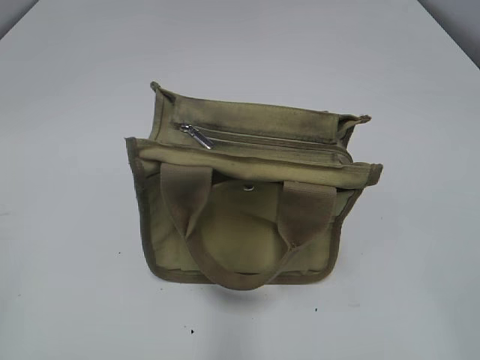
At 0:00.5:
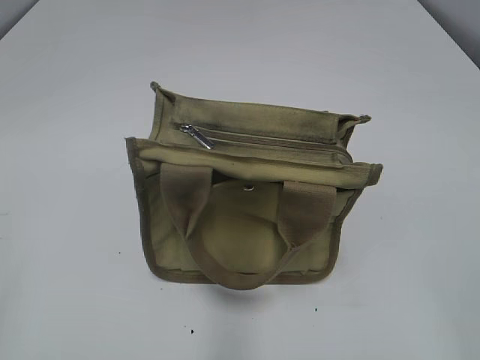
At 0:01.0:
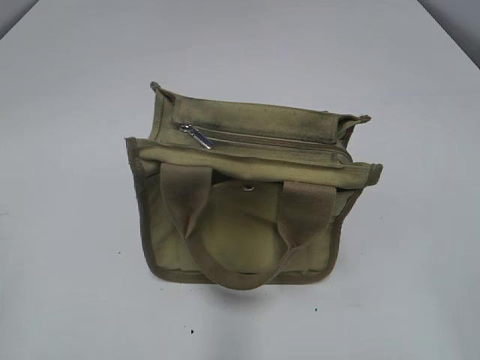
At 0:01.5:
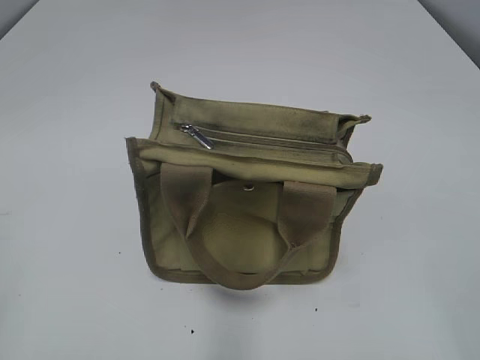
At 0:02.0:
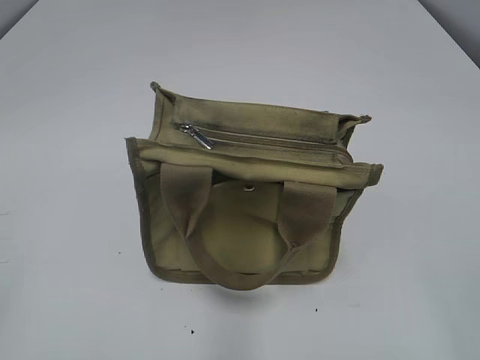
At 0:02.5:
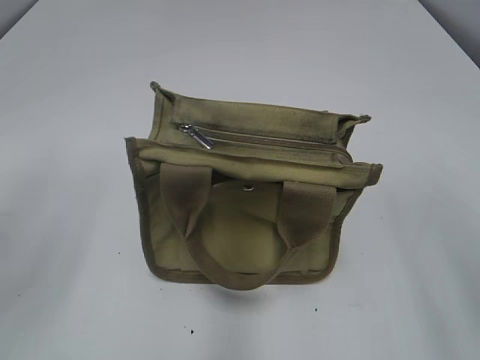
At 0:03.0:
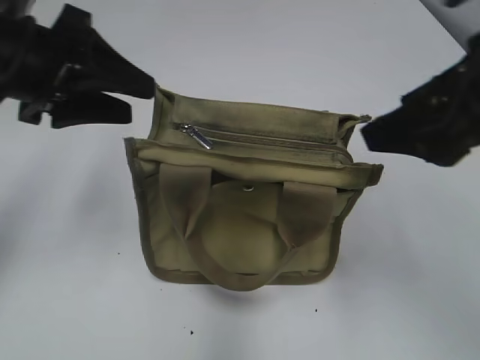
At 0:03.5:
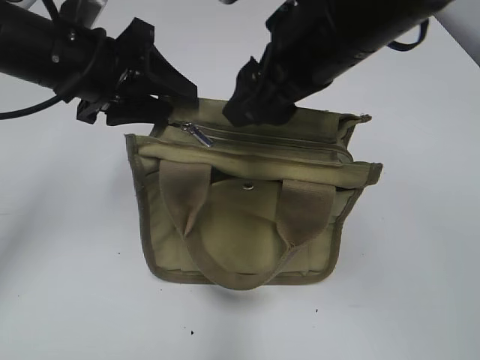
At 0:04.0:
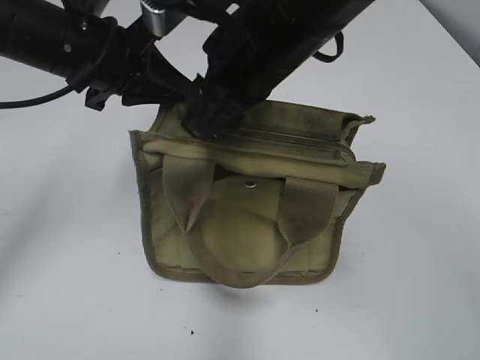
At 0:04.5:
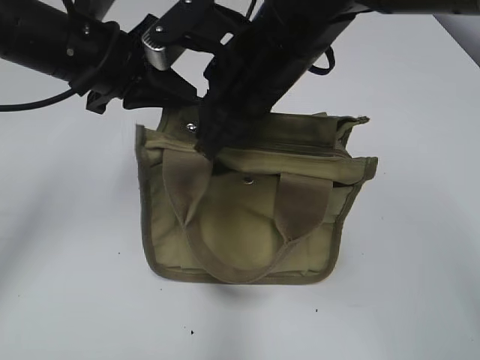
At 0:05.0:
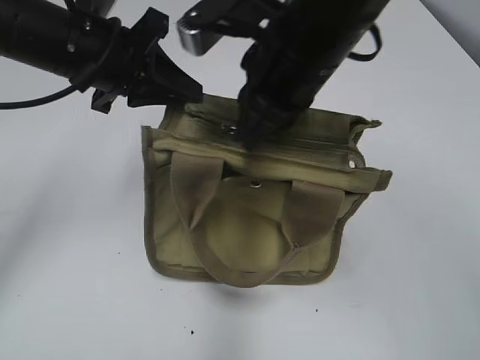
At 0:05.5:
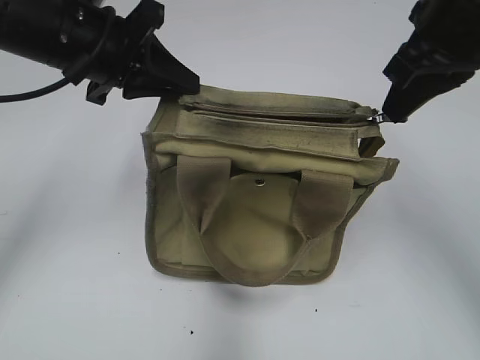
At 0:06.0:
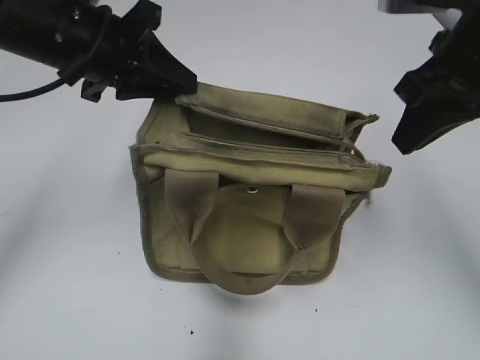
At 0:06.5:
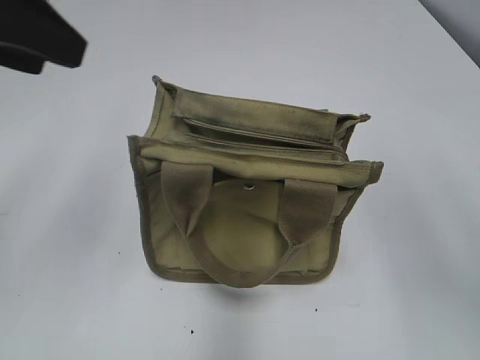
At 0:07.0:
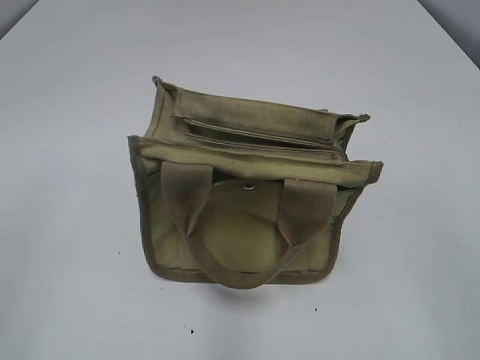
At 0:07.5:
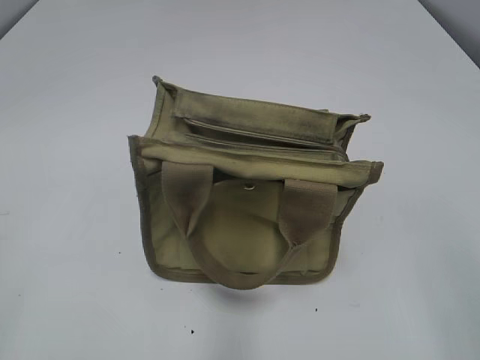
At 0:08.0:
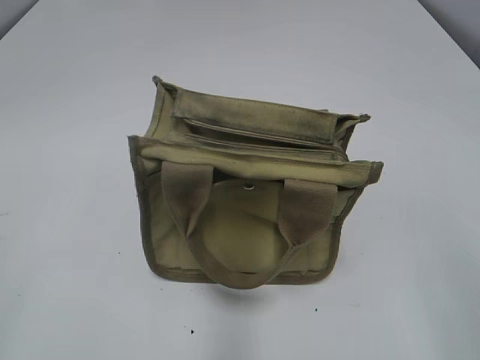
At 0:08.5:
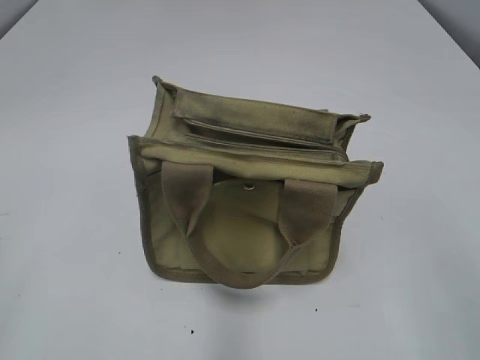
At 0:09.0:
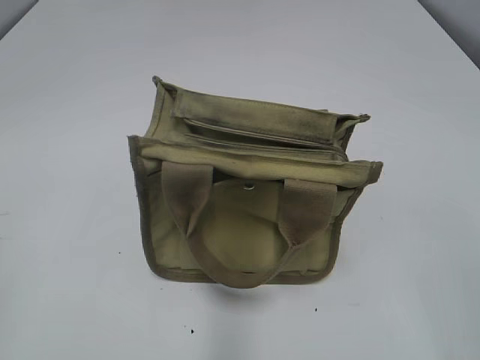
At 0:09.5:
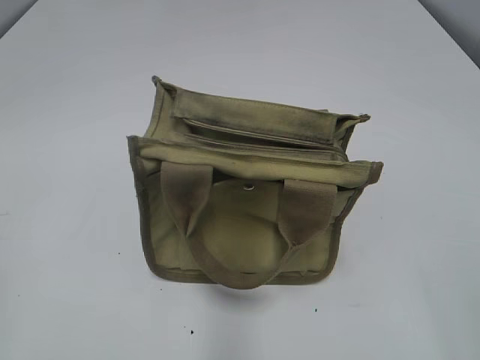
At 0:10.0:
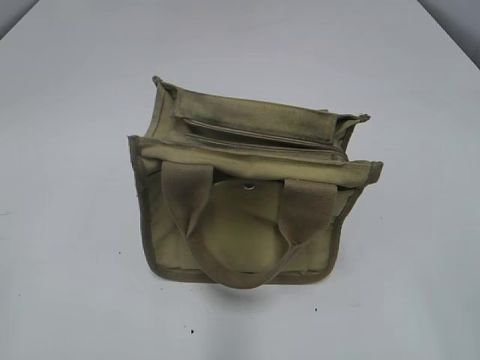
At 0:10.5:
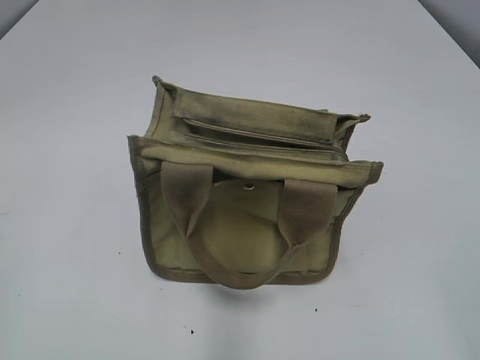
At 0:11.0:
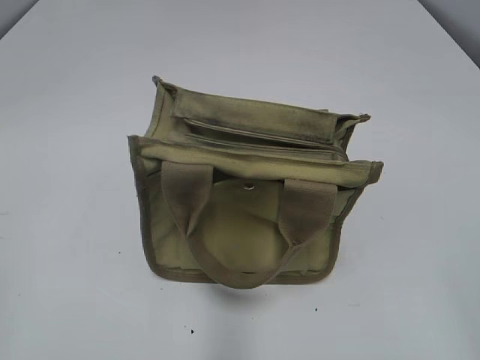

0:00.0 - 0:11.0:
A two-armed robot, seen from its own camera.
Step, 0:00.0 - 0:05.5: Pull open the zipper with your right hand.
0:02.0 - 0:03.5: The right gripper heads forward and to the left, covering about 35 cm; the left gripper shifts some 35 cm forward and to the right.
0:03.5 - 0:05.5: The right gripper travels to the right by some 10 cm, and closes up. The left gripper closes.
0:05.5 - 0:07.5: The left gripper moves backward and to the left, approximately 35 cm, and opens. The right gripper moves backward, some 25 cm, and opens.

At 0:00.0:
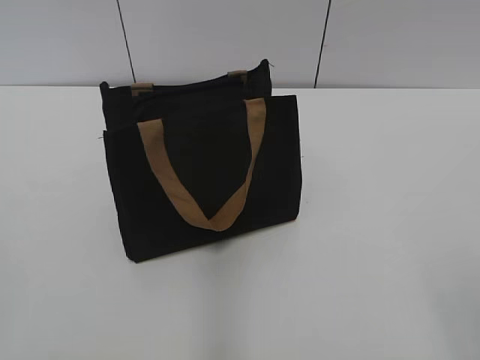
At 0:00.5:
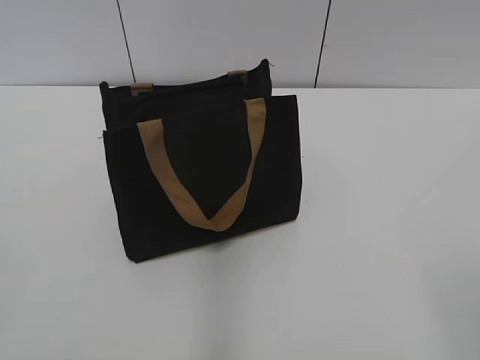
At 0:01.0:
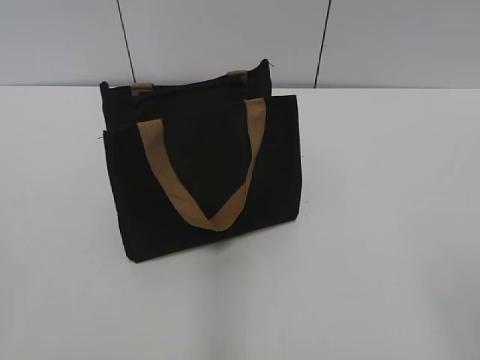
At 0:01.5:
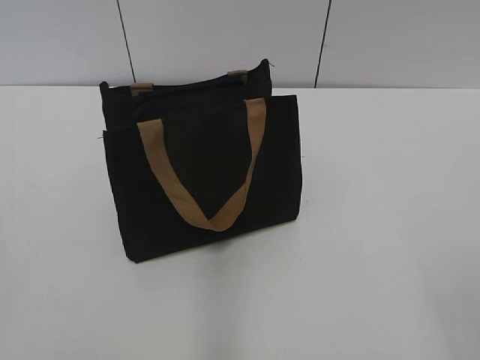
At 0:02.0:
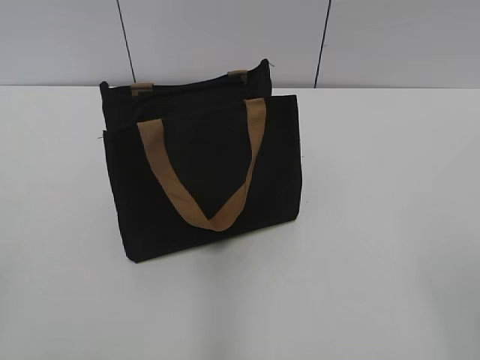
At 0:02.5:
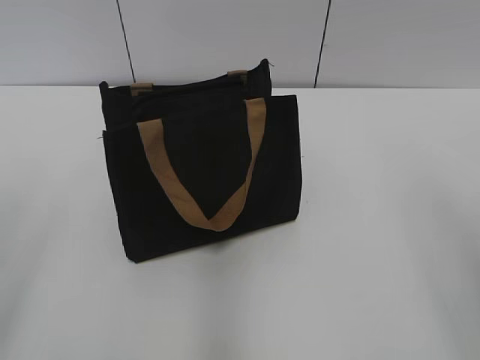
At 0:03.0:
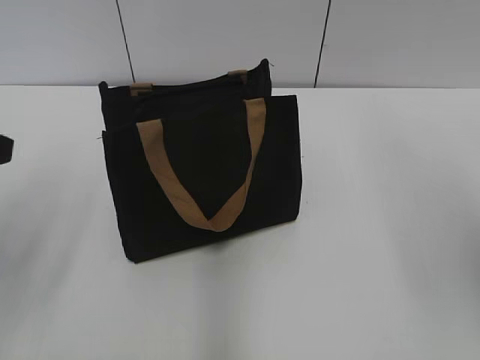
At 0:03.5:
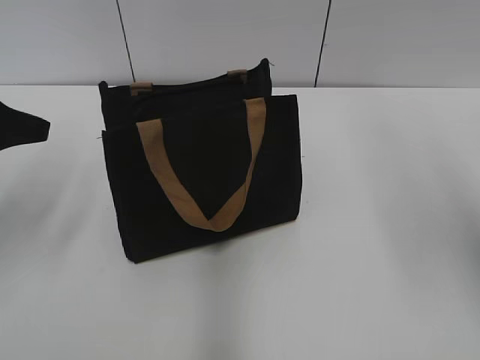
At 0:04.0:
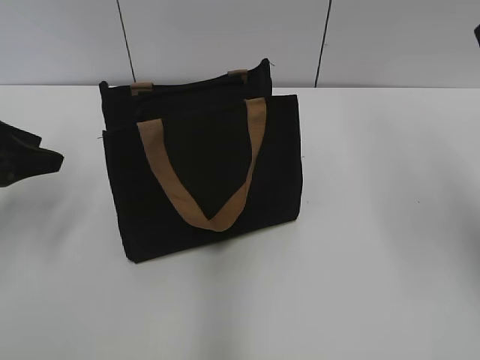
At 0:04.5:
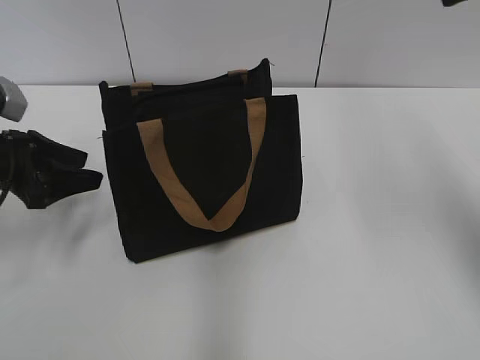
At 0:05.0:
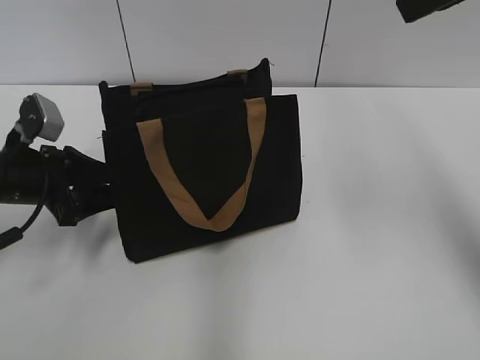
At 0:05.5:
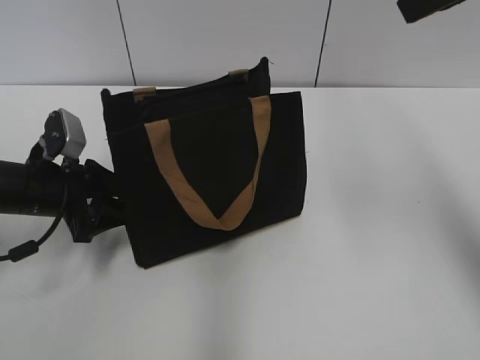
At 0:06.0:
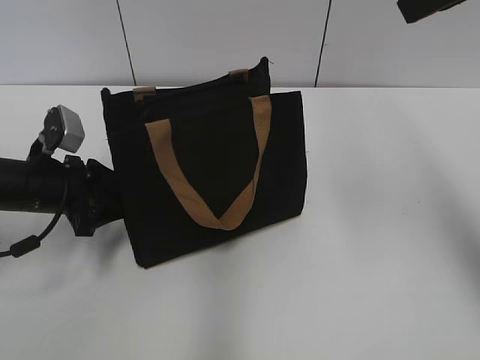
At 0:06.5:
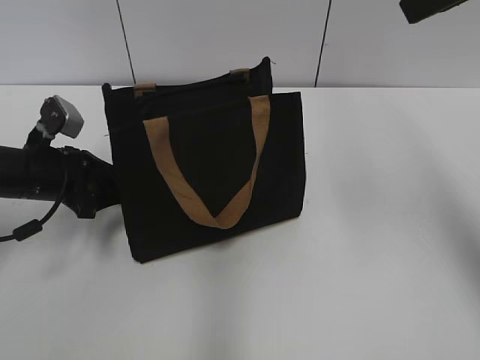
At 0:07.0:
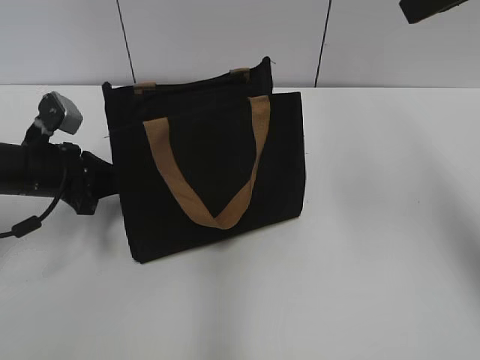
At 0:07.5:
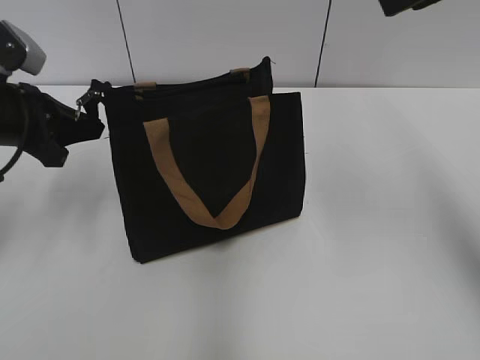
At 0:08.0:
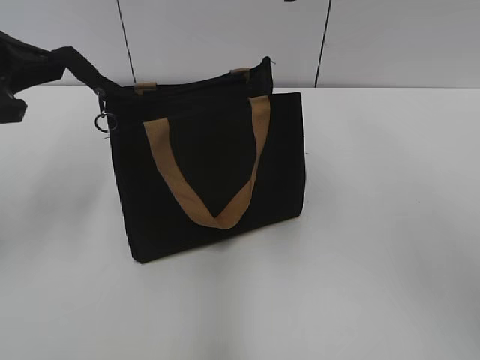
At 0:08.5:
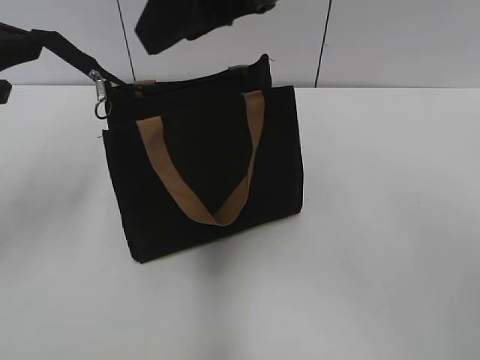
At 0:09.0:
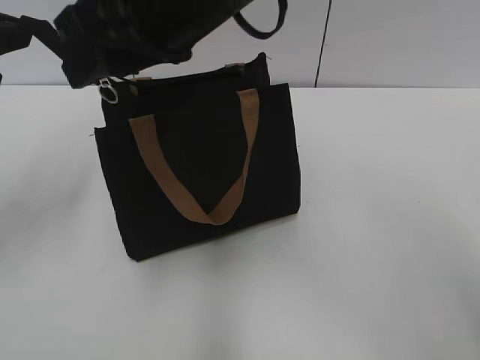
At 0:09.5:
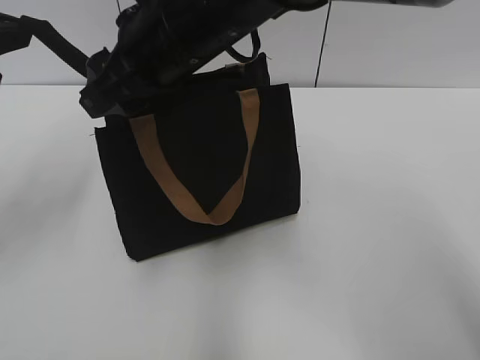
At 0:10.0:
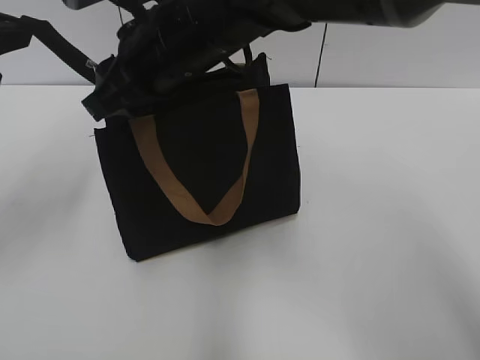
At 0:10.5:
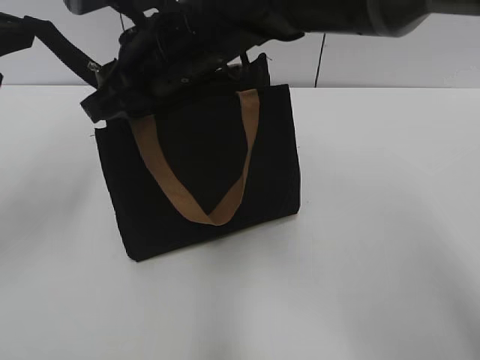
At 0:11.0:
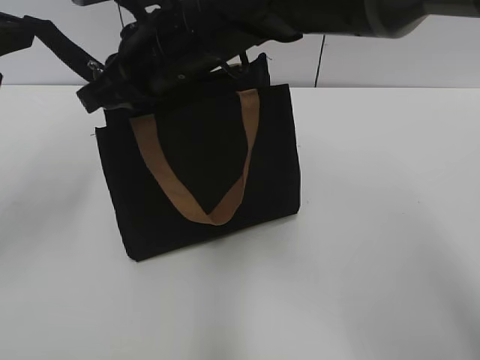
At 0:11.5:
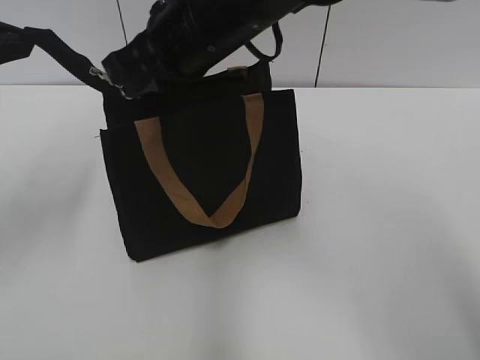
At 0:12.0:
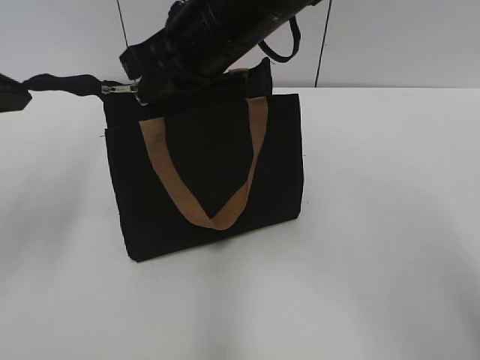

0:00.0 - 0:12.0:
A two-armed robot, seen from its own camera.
0:02.0 - 0:04.0: The left gripper travels forward by some 30 cm. The right gripper travels forward and upward by roughly 25 cm.
0:04.0 - 0:06.0: The left gripper travels downward and to the right by roughly 10 cm; the right gripper moves approximately 5 cm.
0:06.0 - 0:08.0: The left gripper moves upward, approximately 15 cm, and closes; the right gripper moves to the left, approximately 10 cm.
0:08.0 - 0:10.0: The right gripper goes some 20 cm to the left and downward.
0:10.0 - 0:12.0: The right gripper closes up.

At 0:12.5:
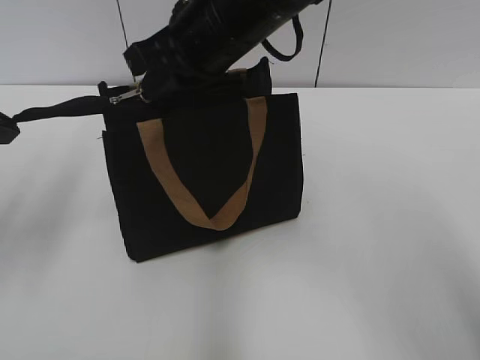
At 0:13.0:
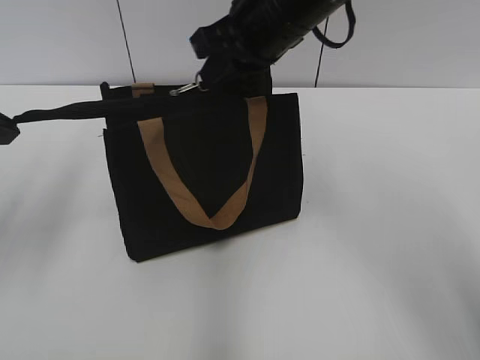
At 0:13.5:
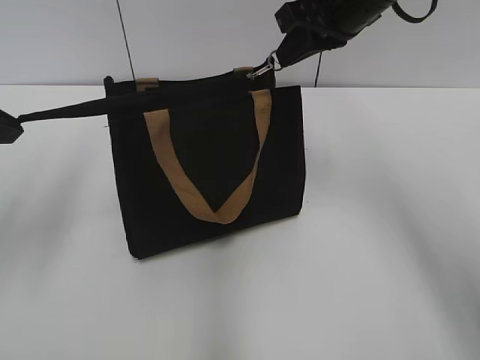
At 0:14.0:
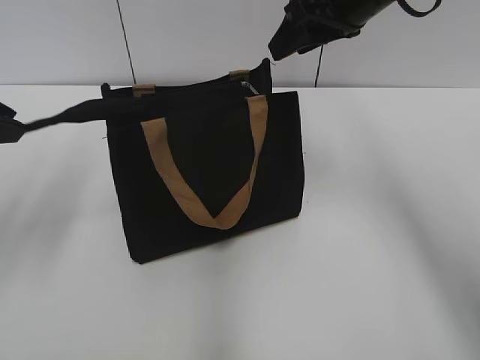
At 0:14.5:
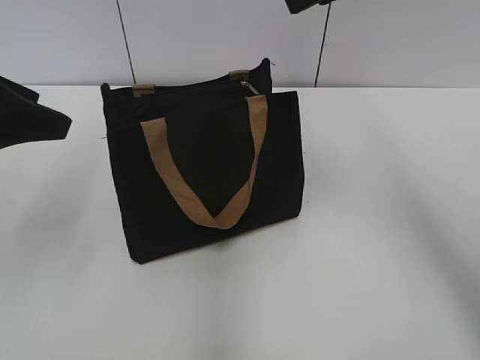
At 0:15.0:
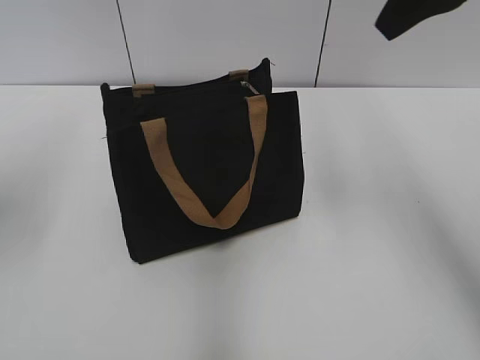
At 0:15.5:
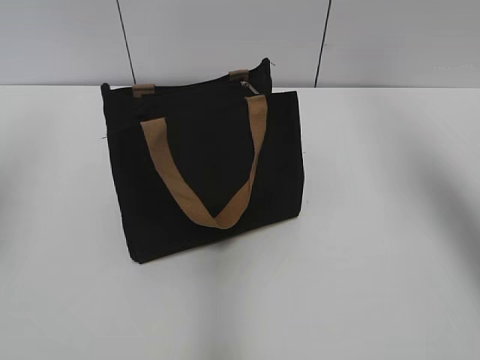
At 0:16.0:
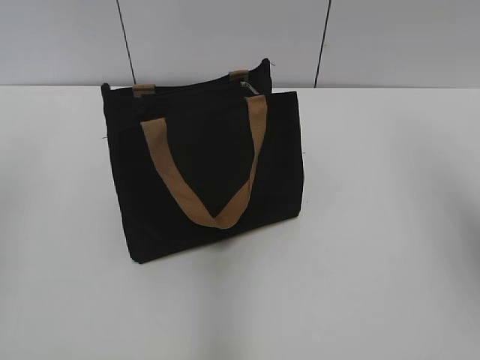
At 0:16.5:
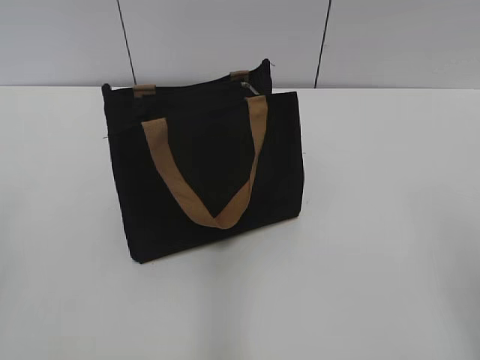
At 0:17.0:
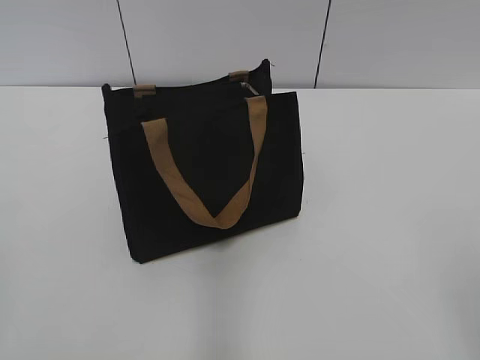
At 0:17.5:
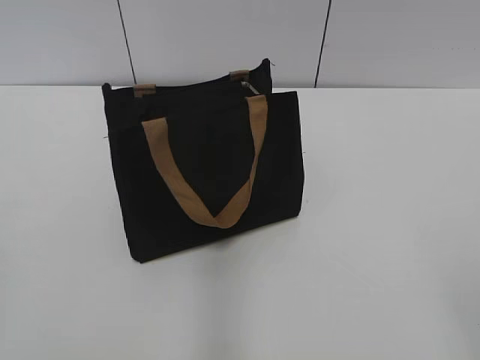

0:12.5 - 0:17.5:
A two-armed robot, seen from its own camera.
0:12.5 - 0:15.0: The left gripper opens its fingers, while the right gripper is displaced to the right and upward by some 20 cm, and opens up.
0:15.0 - 0:17.5: Both grippers travel together backward, roughly 30 cm.
